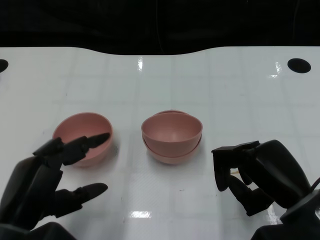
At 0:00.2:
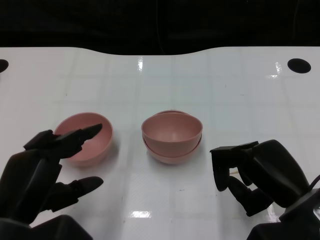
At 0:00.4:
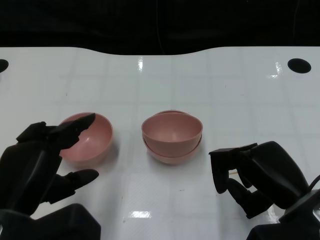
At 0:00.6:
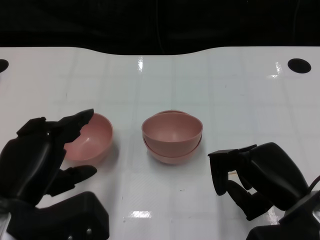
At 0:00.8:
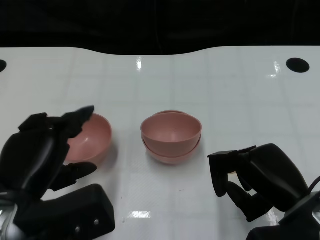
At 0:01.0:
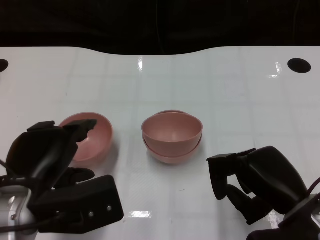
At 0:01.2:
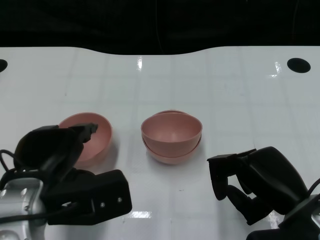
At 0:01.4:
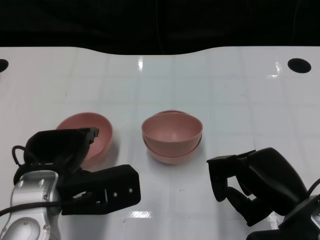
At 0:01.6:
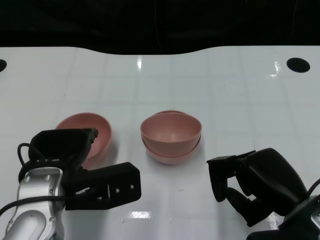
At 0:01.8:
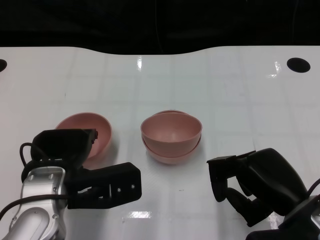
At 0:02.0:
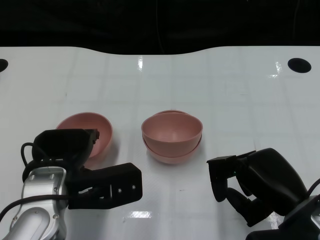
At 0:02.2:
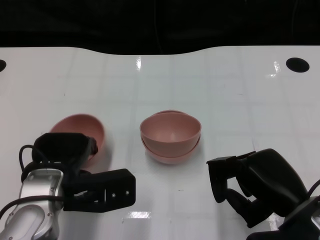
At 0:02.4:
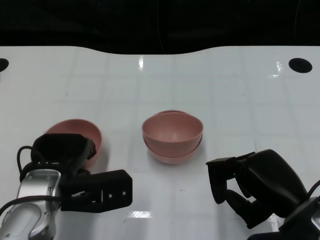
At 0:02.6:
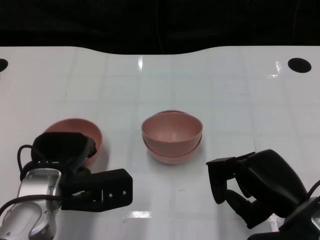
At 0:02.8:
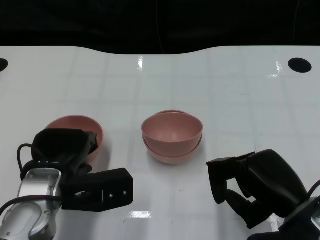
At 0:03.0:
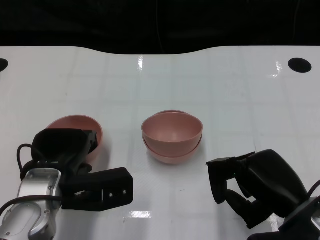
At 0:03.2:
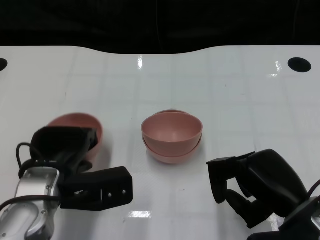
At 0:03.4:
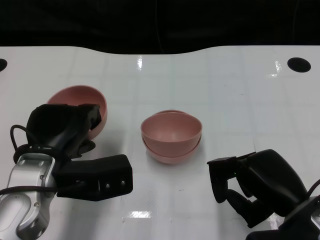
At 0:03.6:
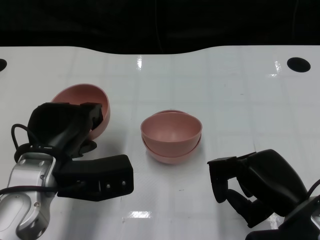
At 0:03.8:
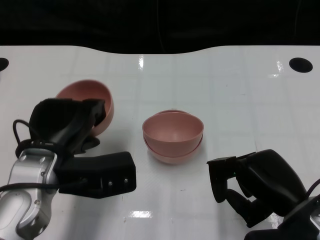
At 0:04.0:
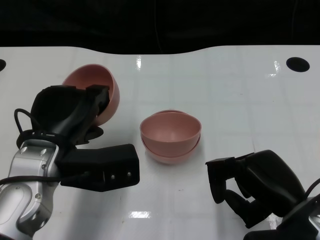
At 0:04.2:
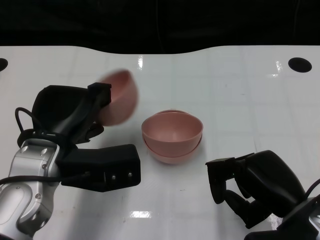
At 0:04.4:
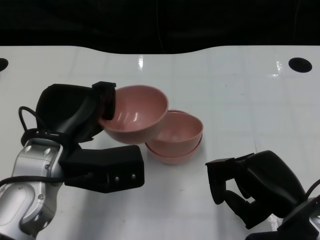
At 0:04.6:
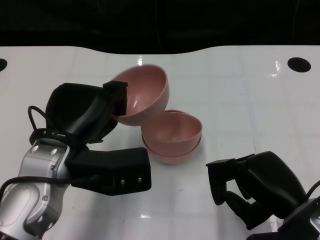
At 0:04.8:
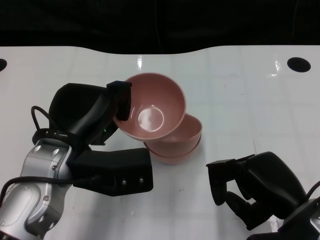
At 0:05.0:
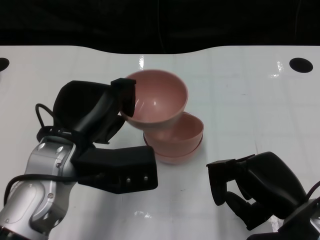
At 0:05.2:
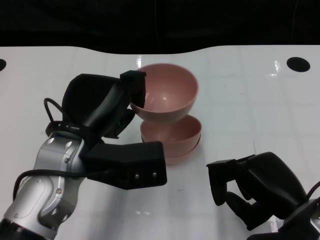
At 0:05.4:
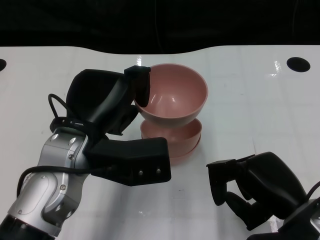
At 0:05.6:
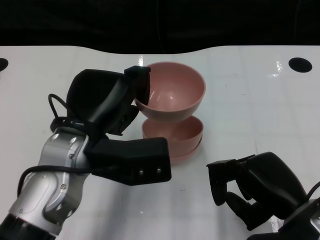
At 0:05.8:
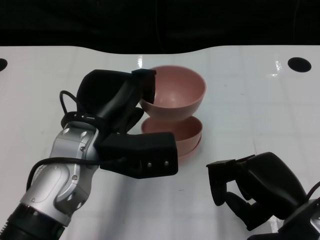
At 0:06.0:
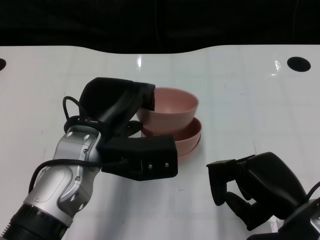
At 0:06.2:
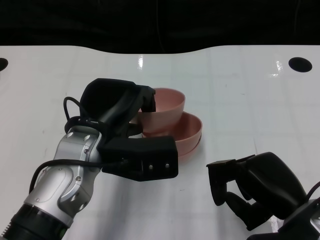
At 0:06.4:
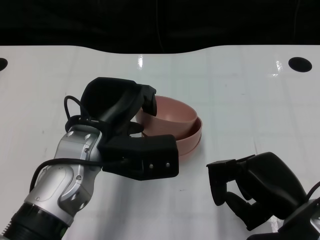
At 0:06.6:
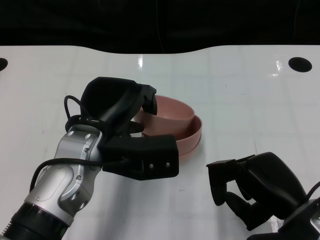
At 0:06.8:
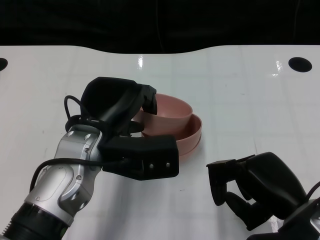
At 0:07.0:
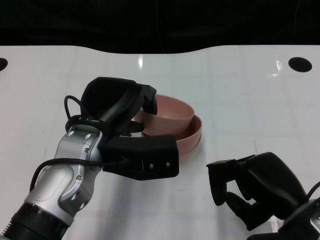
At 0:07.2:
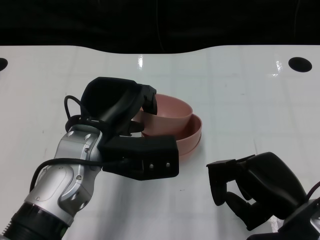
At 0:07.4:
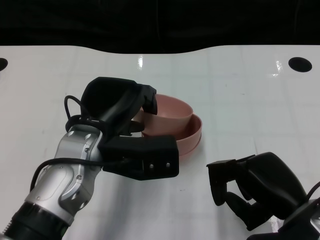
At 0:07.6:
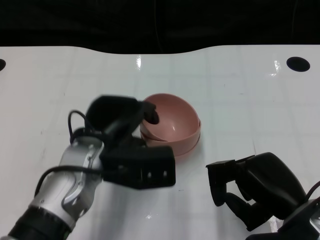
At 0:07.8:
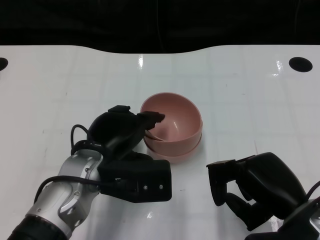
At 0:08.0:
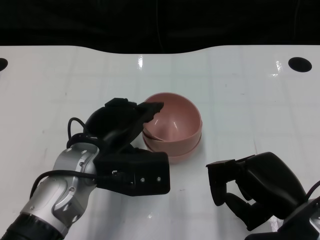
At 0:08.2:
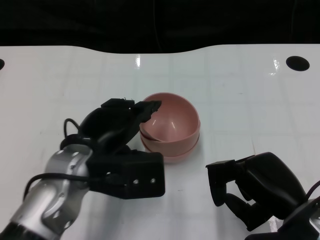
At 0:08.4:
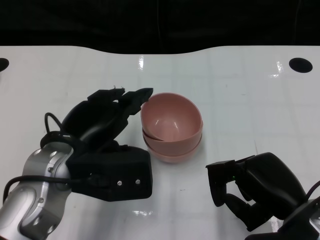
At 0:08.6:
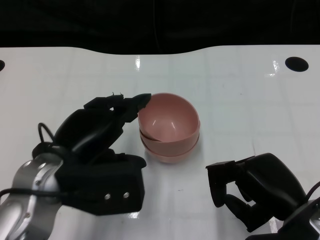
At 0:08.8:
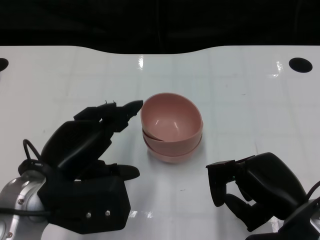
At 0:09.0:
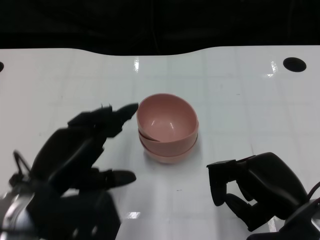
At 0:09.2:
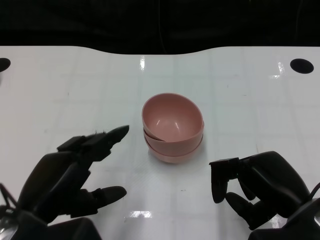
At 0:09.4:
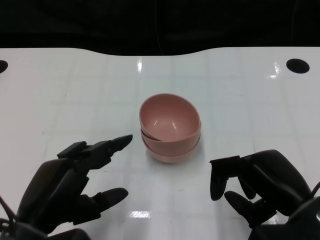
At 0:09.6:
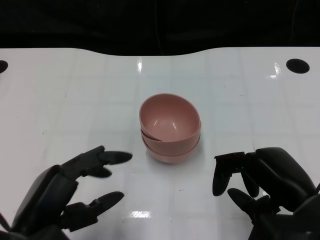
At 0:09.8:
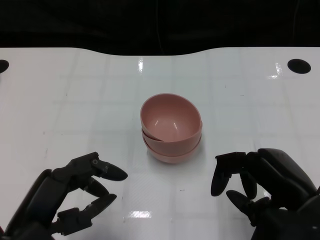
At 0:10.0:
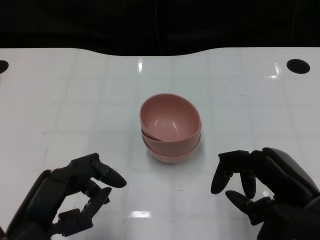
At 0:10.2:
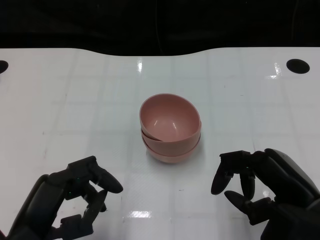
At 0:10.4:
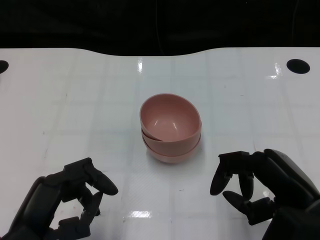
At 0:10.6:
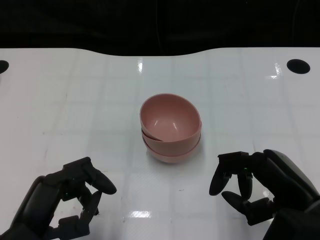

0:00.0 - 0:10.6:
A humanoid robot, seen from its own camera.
Task of the whole recording: Pick up the bowl on one side of the table and place it on top of the middle bowl, then pick up the bowl on the other side of the table and place it on top of the middle bowls.
Step, 0:00.0 - 0:02.6: Grasp the bowl on the left with the left gripper.
Step, 0:03.0 - 0:08.4: Place the bowl on the left onto the bowl in the middle with left gripper.
0:00.0 - 0:01.6: The left hand heads forward, covering approximately 10 cm.
0:01.6 - 0:03.0: The hands move only a little.
0:03.0 - 0:04.6: The left hand travels upward by approximately 5 cm.
0:06.0 - 0:07.6: The hands make only small movements.
0:07.6 - 0:09.0: The left hand is displaced backward and to the left by roughly 10 cm.
0:09.0 - 0:10.6: The left hand goes roughly 5 cm backward.

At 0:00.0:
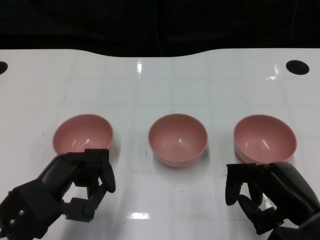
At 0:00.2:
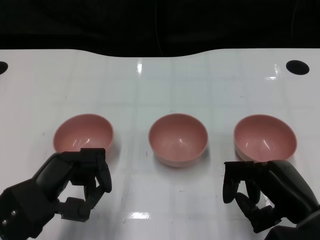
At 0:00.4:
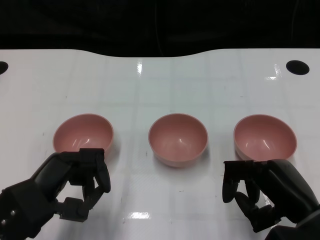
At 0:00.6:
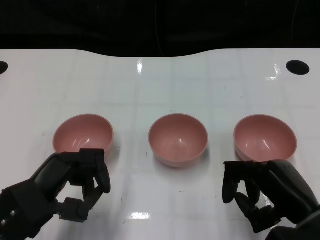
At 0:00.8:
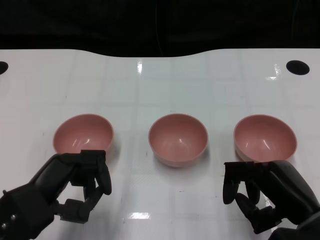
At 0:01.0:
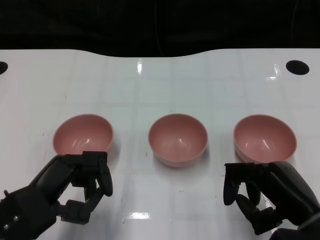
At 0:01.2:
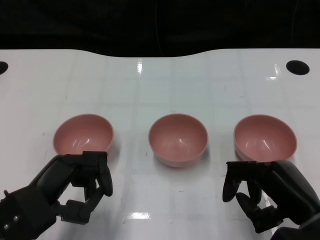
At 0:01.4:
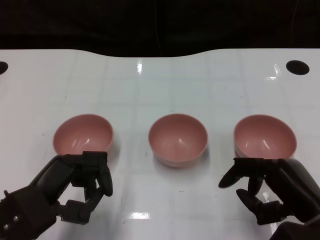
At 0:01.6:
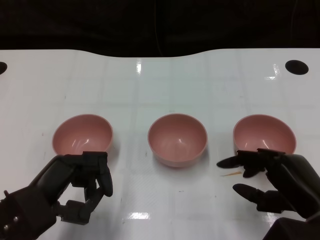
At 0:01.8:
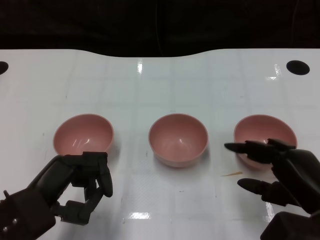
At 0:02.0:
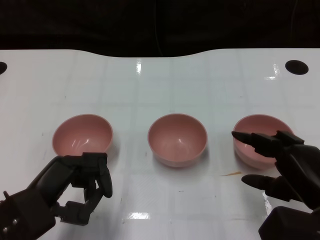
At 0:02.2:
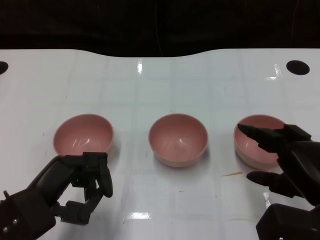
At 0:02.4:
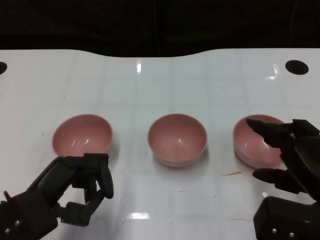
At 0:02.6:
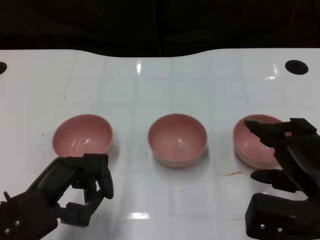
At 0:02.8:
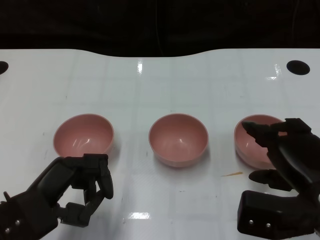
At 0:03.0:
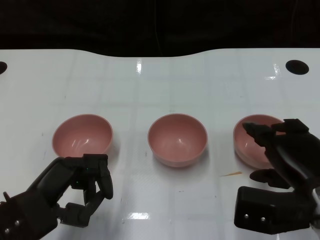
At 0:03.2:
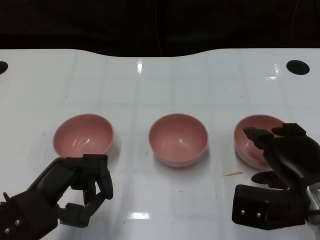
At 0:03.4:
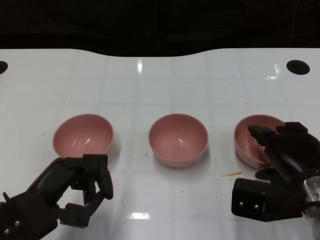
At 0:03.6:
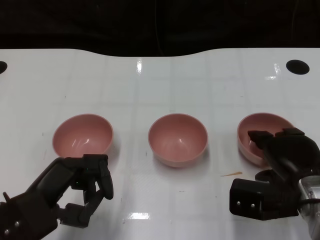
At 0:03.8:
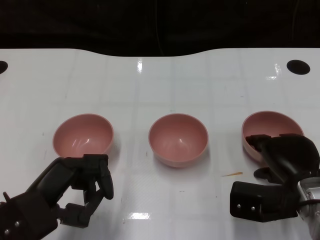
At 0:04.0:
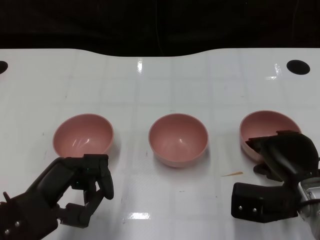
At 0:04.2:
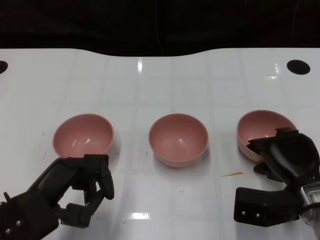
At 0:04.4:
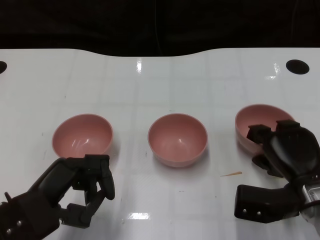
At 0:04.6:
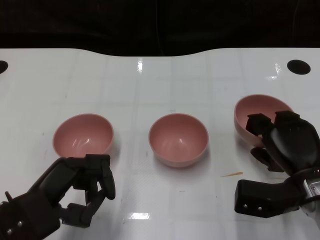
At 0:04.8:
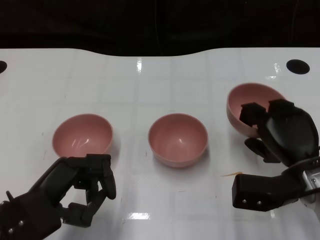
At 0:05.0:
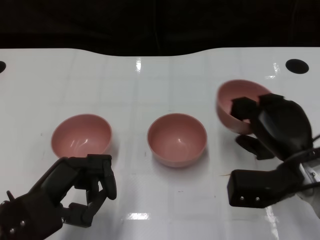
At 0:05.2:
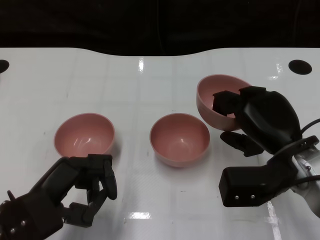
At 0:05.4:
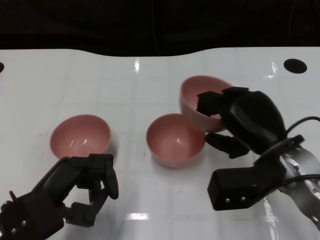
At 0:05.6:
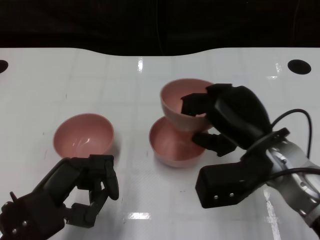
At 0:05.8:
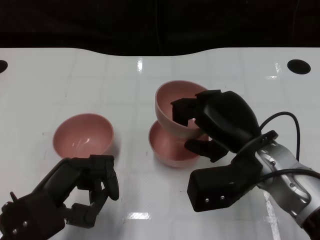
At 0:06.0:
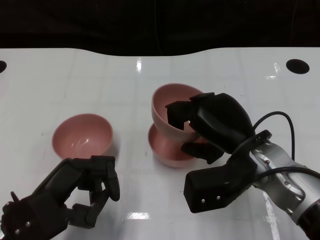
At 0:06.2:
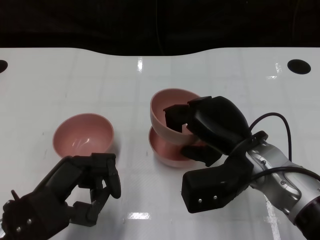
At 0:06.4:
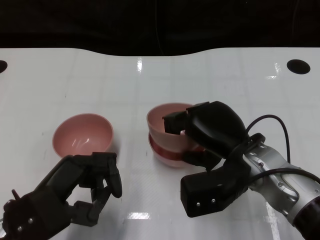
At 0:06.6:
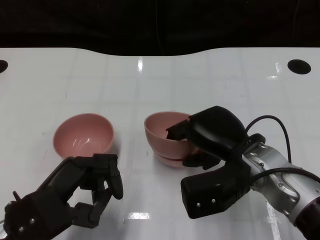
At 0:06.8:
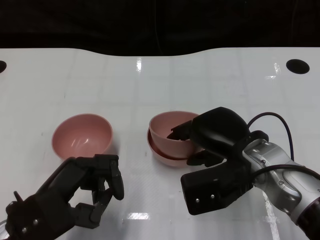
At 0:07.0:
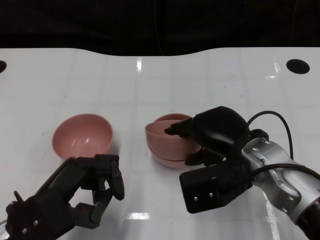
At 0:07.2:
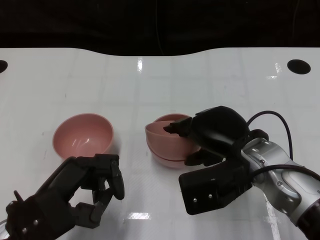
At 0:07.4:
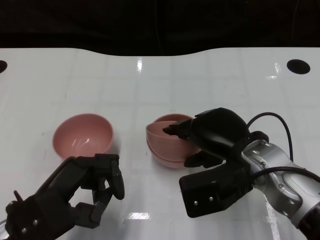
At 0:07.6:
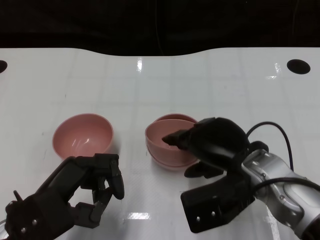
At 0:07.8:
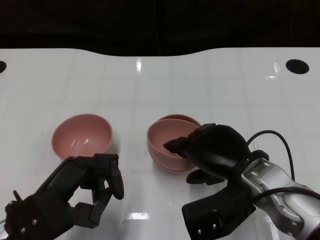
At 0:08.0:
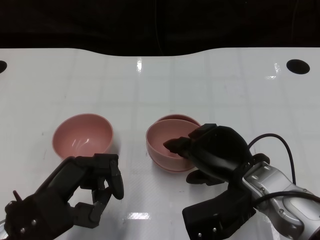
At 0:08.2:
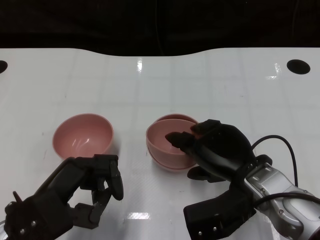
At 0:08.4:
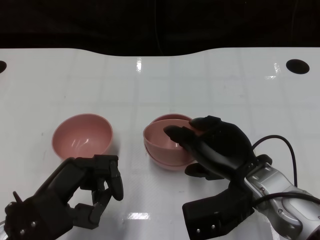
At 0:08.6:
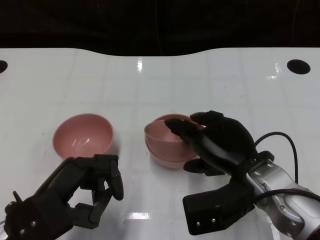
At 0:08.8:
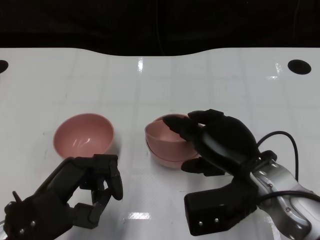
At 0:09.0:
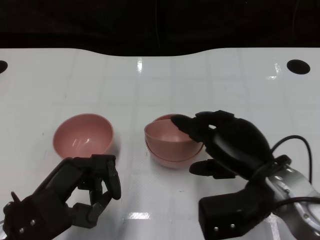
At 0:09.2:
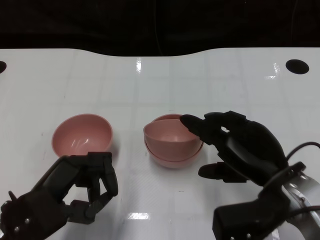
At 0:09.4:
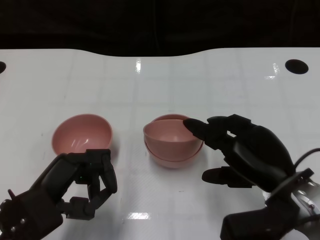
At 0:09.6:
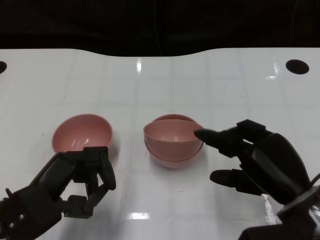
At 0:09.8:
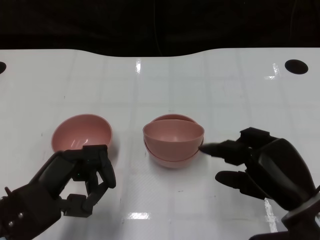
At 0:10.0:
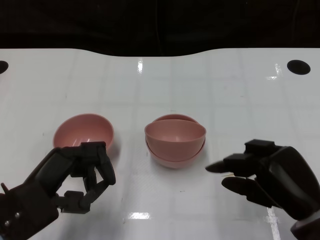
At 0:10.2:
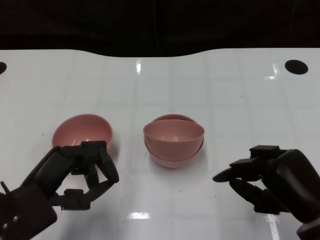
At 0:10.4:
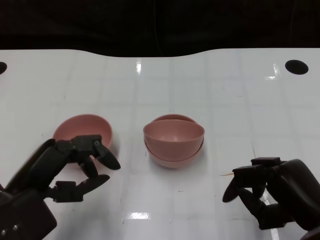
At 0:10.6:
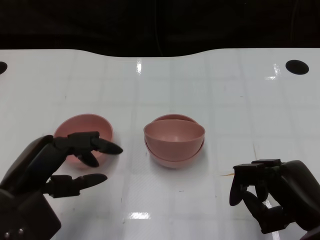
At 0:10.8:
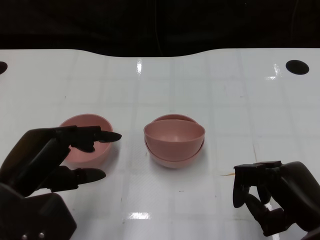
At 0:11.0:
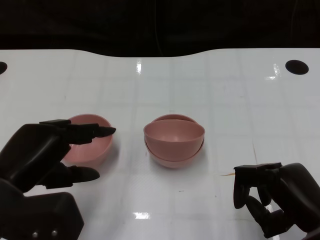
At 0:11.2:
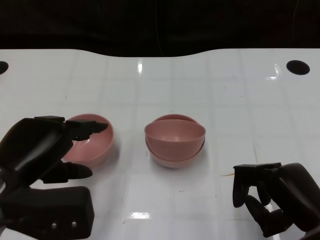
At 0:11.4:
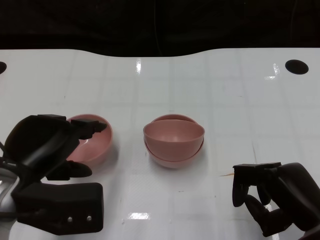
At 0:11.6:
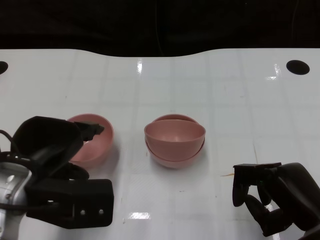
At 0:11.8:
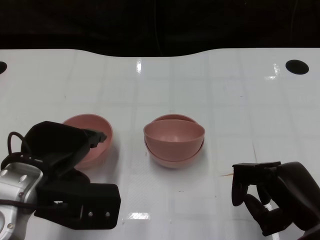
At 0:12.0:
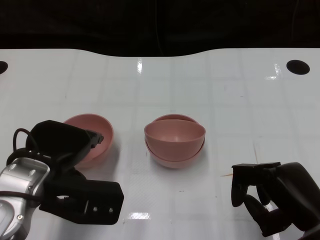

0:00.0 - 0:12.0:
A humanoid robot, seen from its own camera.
Task of the whole recording: Pick up the bowl on one side of the table and place it on top of the middle bowl, then pick up the bowl on the other side of the table and place it on top of the middle bowls.
Step, 0:01.2 - 0:04.4: Grasp the bowl on the right with the right gripper.
Step, 0:04.6 - 0:09.4: Place the bowl on the right onto the bowl in the middle with right gripper.
0:03.0 - 0:04.4: The right hand shifts approximately 5 cm downward.
0:04.4 - 0:06.0: The right hand goes about 10 cm to the left and upward.
0:07.6 - 0:09.0: The hands make only small movements.
0:09.0 - 0:10.4: The right hand heads to the right and backward, covering approximately 10 cm.
0:10.4 - 0:12.0: The left hand ends up about 5 cm from where it was.
